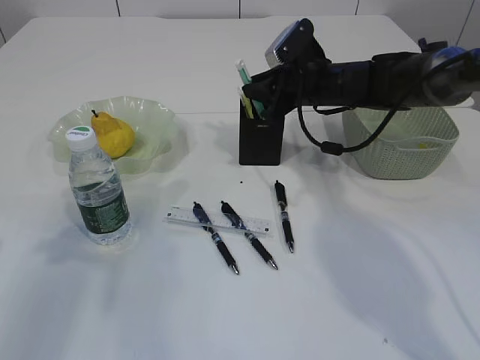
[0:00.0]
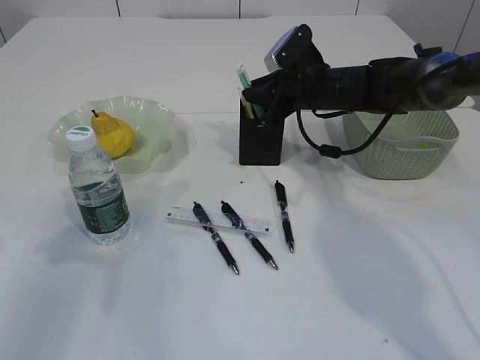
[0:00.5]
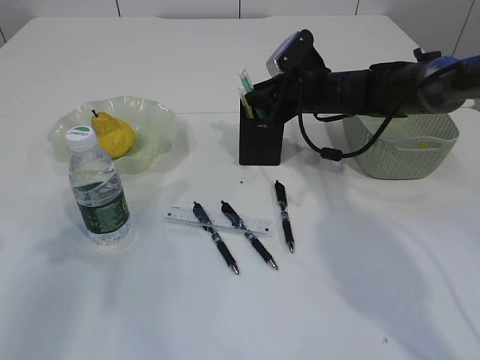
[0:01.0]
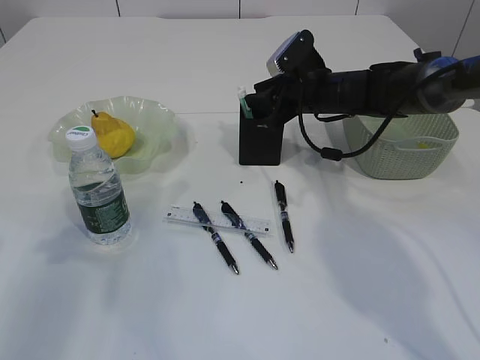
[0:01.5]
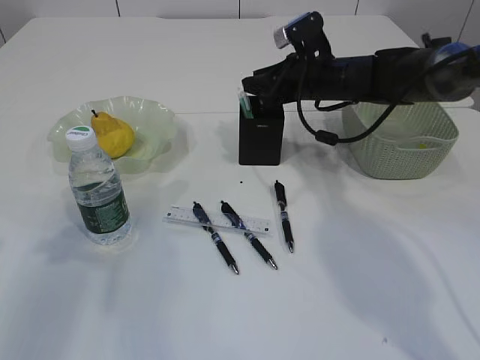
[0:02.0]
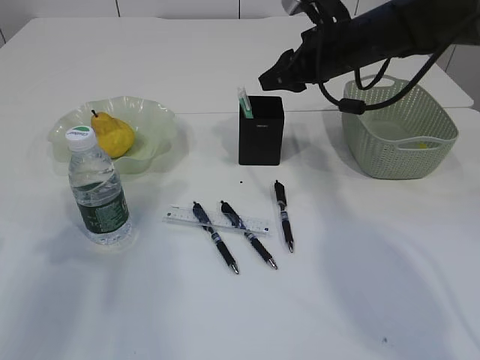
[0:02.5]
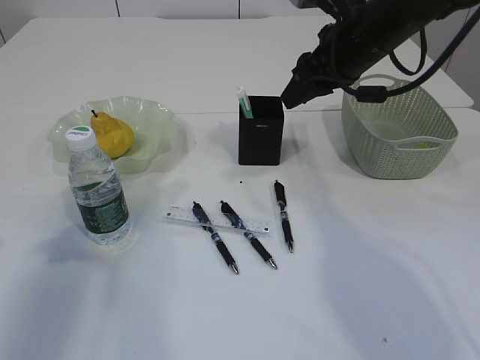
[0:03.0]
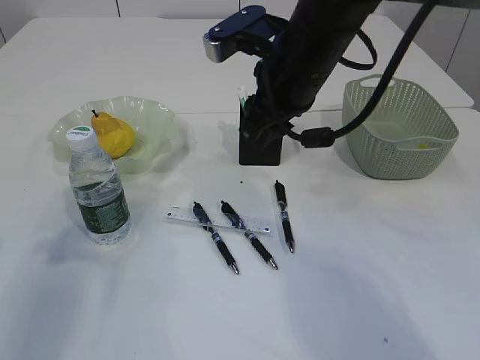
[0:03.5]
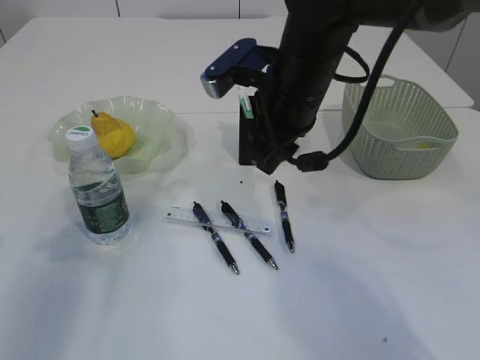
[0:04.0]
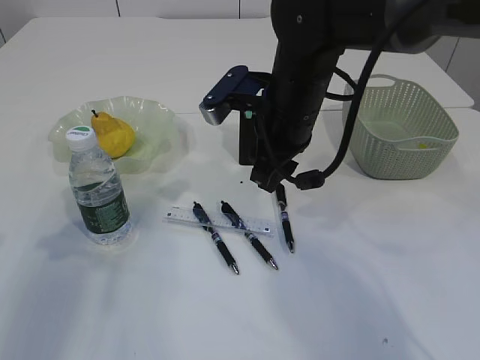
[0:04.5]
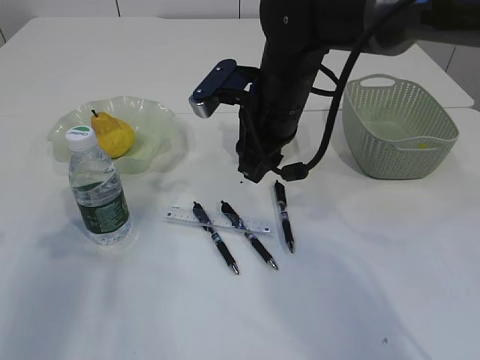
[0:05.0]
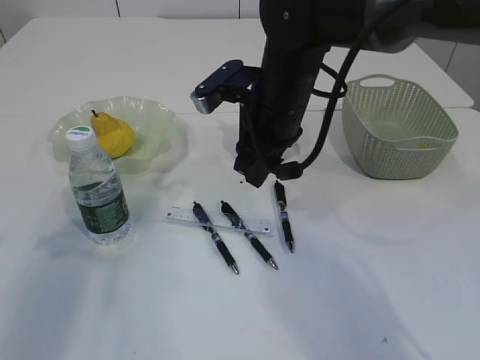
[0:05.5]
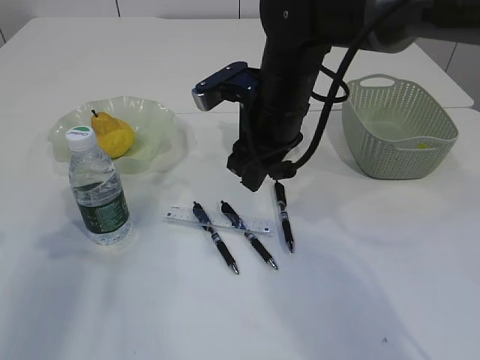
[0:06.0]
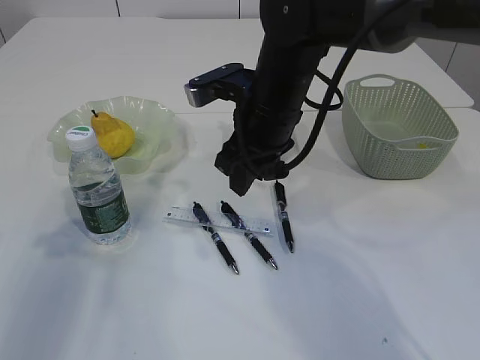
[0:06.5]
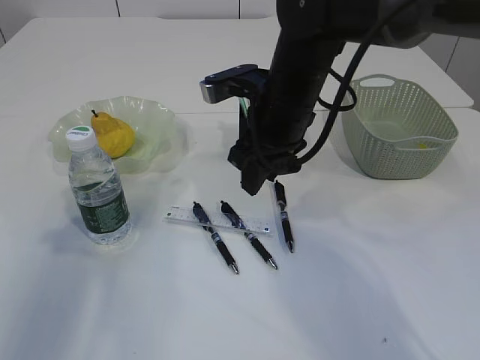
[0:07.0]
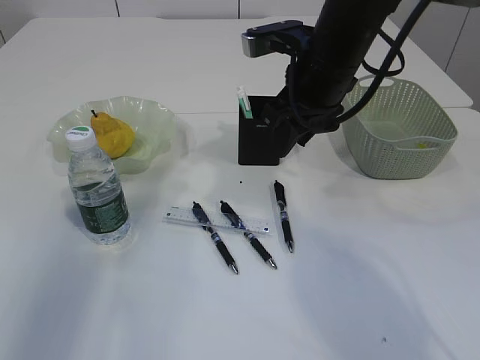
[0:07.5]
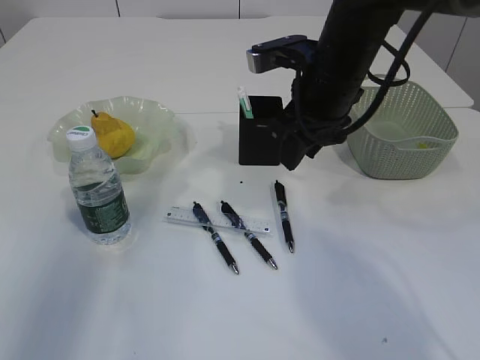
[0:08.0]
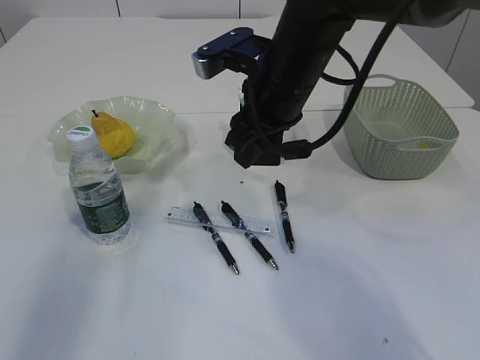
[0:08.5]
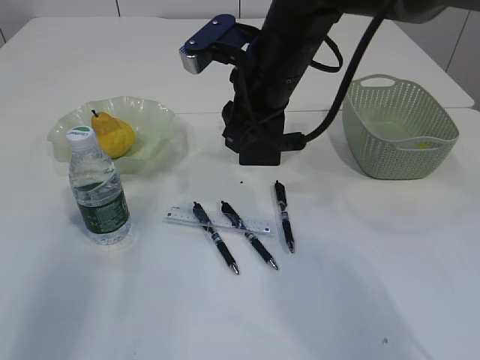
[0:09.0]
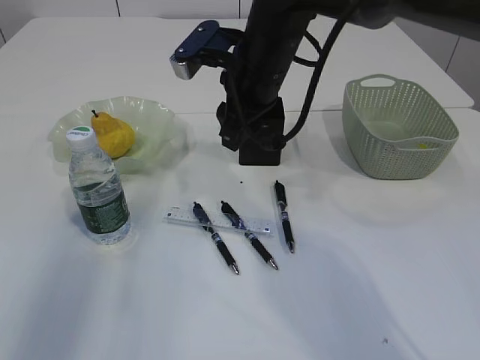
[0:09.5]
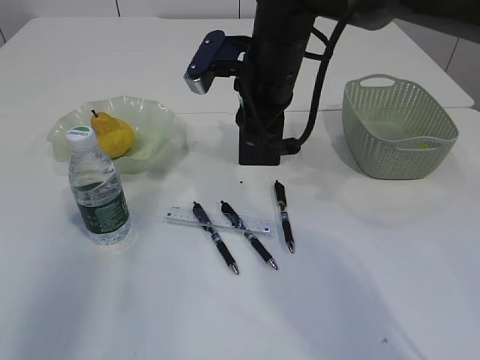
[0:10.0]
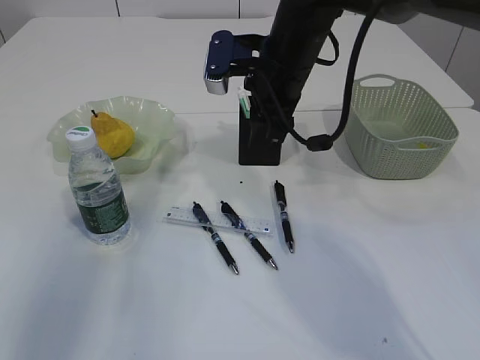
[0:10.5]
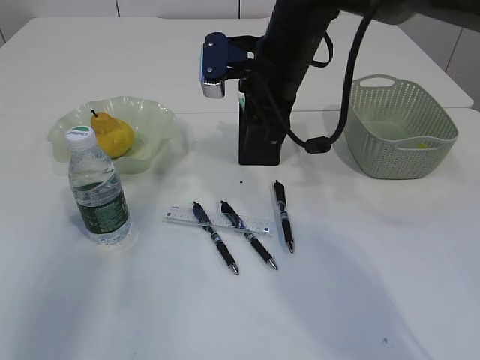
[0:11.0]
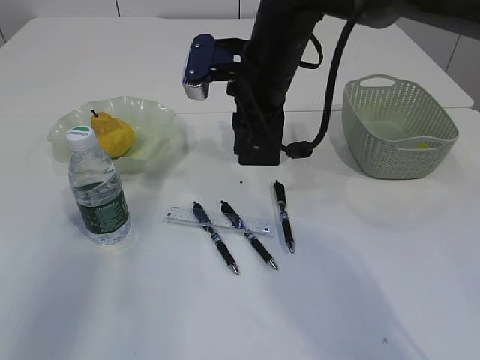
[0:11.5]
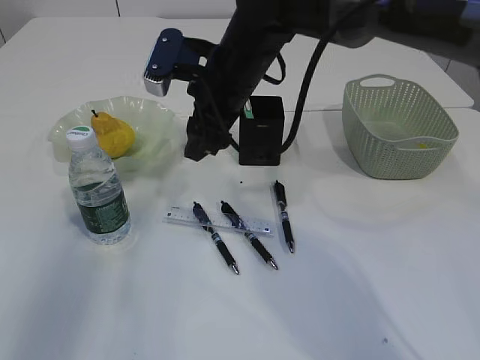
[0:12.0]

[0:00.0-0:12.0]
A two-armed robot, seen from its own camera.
Step, 0:00.0 to 0:02.0: Place the blue knife into the pen holder.
0:00.0 to 0:02.0: There are only small adjustments of the grippers.
0:02.0 to 0:04.0: The right gripper travels backward, to the left and upward by approximately 15 cm.
0:04.0 to 0:06.0: The grippers make only small movements.
0:06.0 to 0:08.0: The left gripper moves upward, roughly 5 cm. The right gripper is displaced to the right by some 5 cm.
0:08.0 to 0:10.0: The right gripper travels to the left by approximately 5 cm.

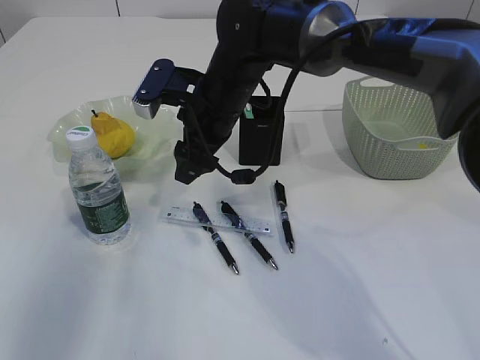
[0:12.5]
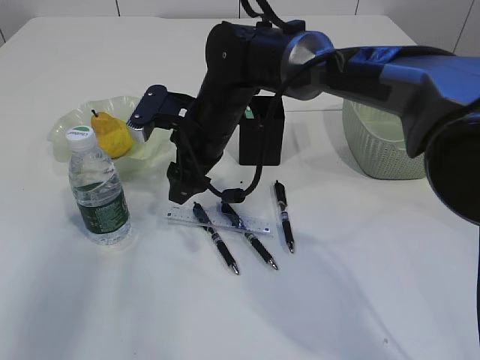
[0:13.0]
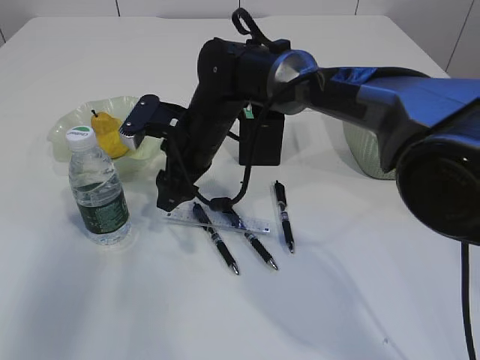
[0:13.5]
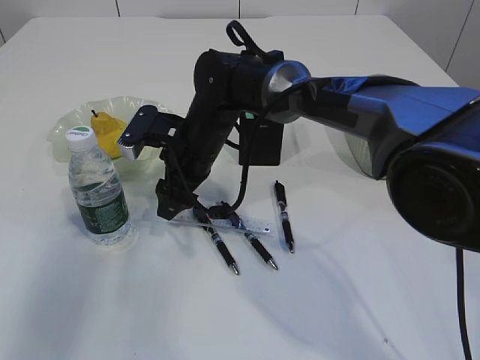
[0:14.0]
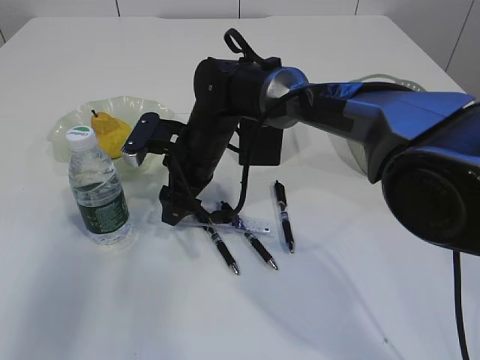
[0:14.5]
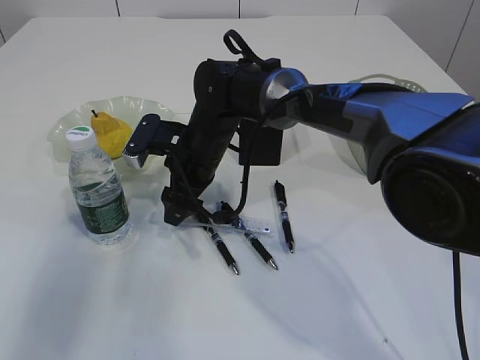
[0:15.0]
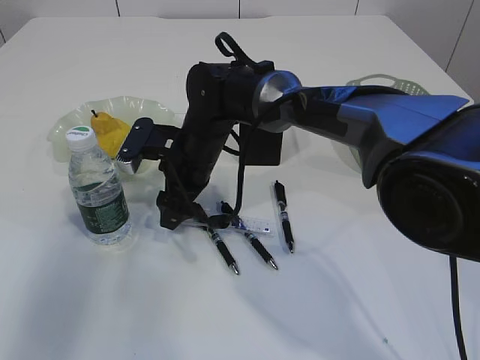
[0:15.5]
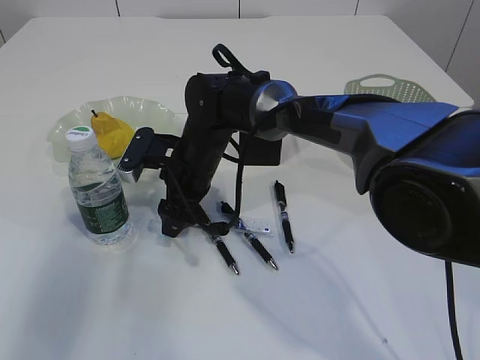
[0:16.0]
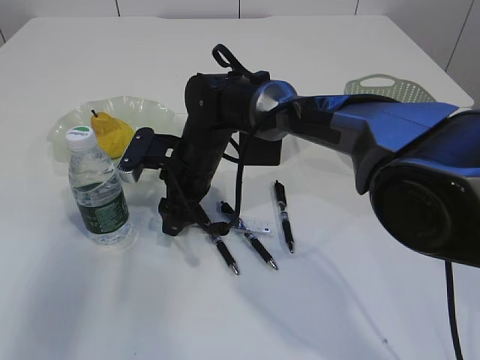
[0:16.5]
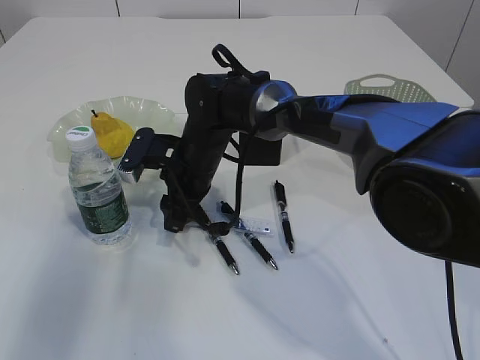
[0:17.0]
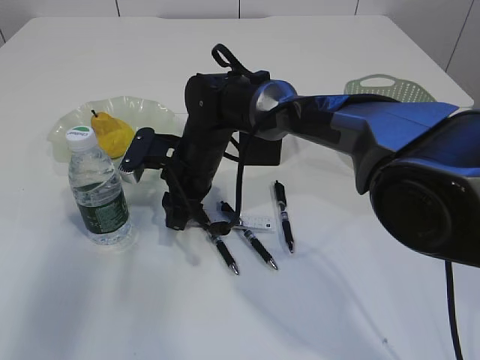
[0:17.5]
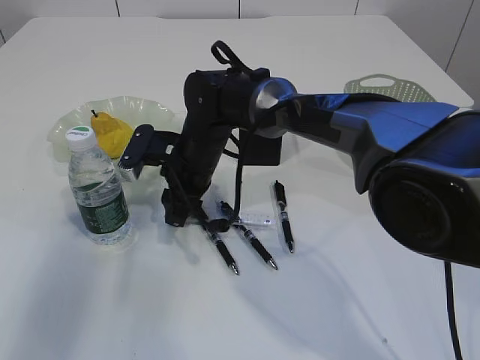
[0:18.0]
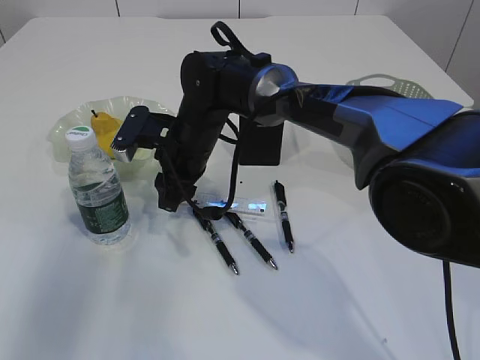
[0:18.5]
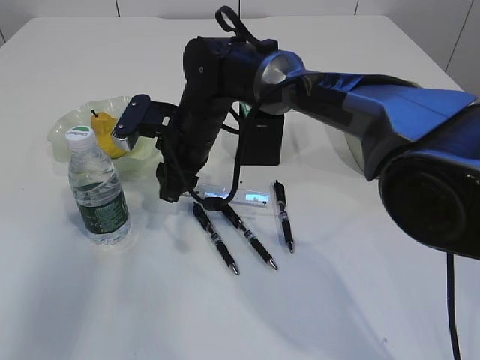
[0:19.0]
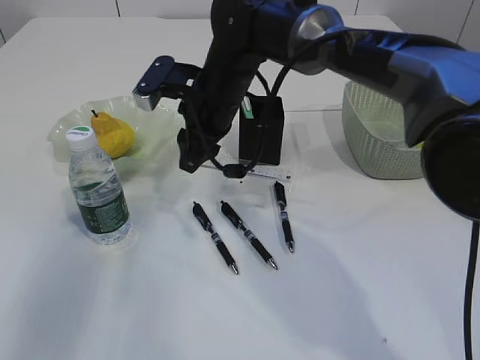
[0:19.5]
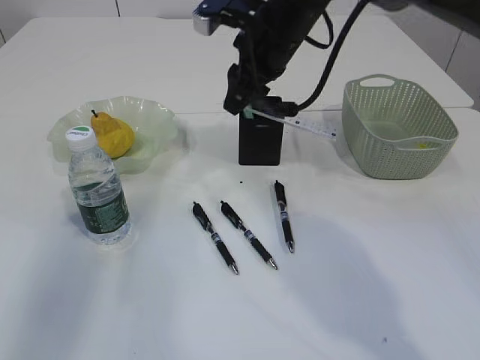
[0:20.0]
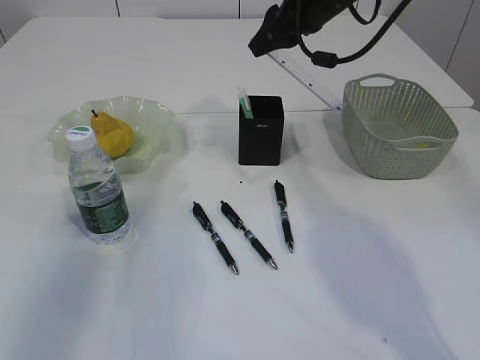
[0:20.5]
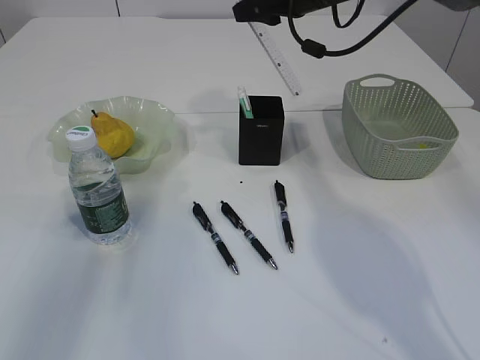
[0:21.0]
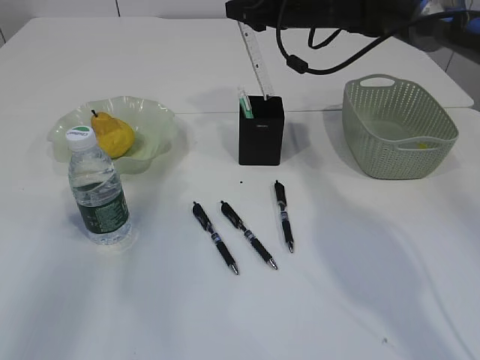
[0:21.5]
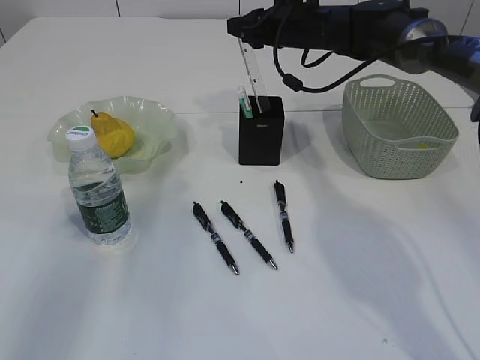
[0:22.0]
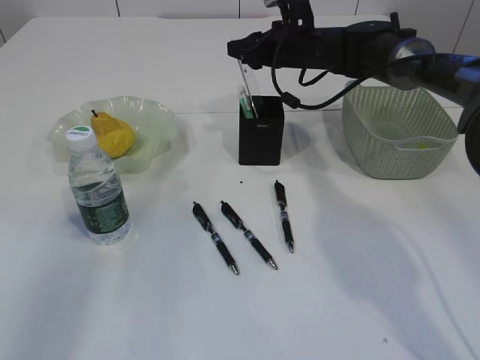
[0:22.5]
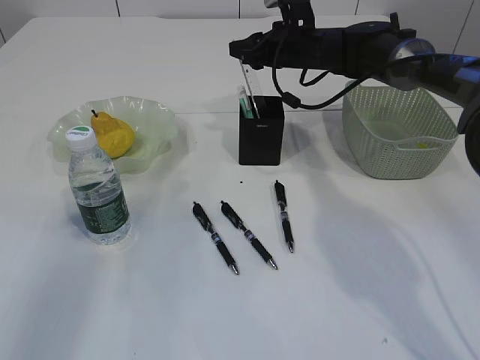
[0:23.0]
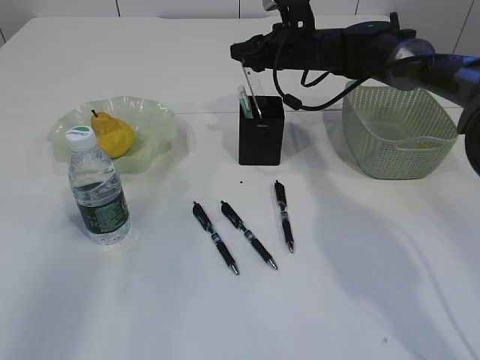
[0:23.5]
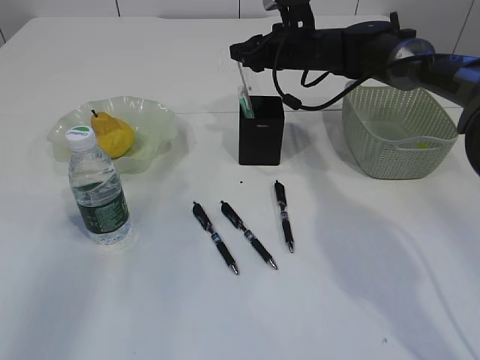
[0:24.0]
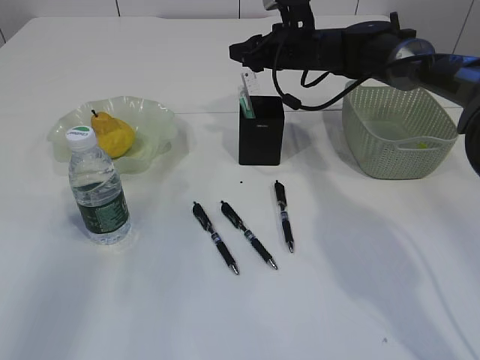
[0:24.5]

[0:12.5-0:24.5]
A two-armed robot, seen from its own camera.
Step, 0:12.5 to 0:18.5: pick up the ruler.
0:12.5 to 0:14.5: The right gripper heads downward, covering some 5 cm.
0:14.5 to 0:18.5: The grippers make only small movements.
0:18.5 to 0:20.5: The right gripper moves to the right and upward, about 25 cm.
0:20.5 to 0:22.5: The right gripper goes about 15 cm downward and forward.
0:22.5 to 0:24.5: The two grippers keep their place.

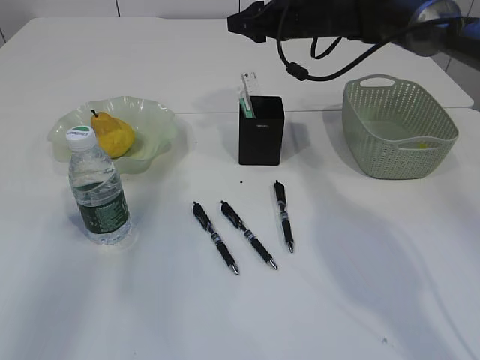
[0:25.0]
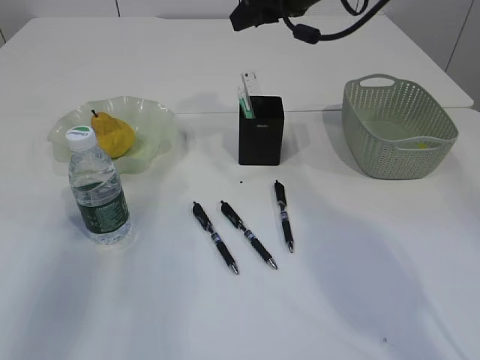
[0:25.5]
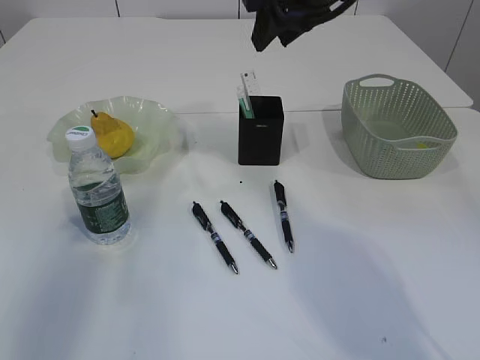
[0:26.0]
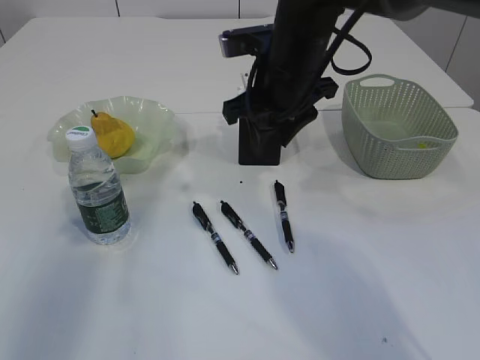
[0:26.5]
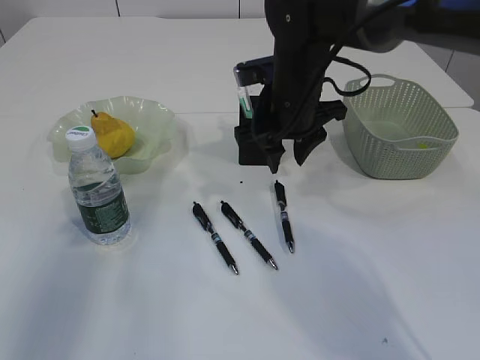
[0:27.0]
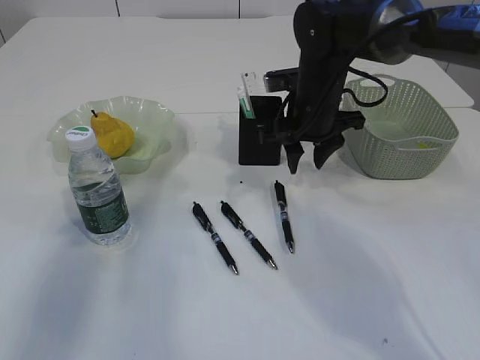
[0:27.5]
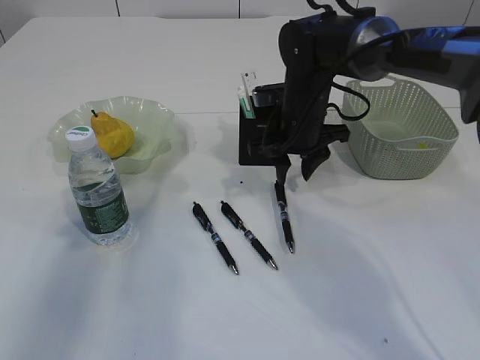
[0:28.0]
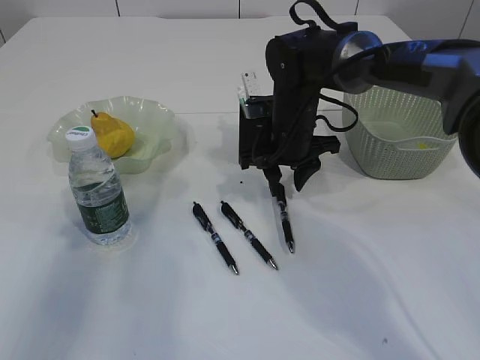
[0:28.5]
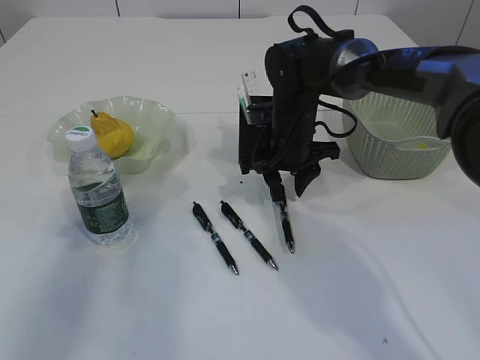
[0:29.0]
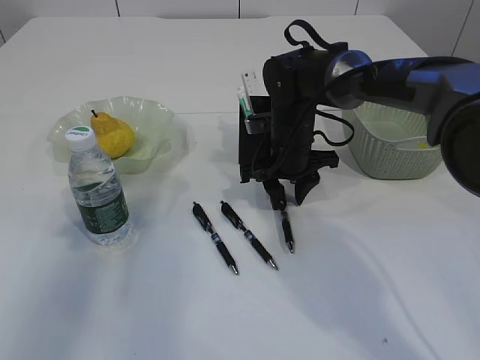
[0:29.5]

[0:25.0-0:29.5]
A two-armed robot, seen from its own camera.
0:25.0 to 0:27.0: The right gripper is displaced backward by about 15 cm.
0:27.0 to 0:29.5: The right gripper travels downward by about 10 cm.
